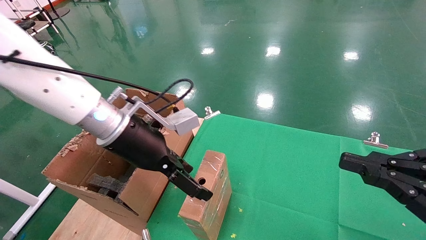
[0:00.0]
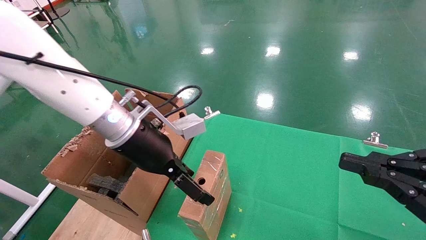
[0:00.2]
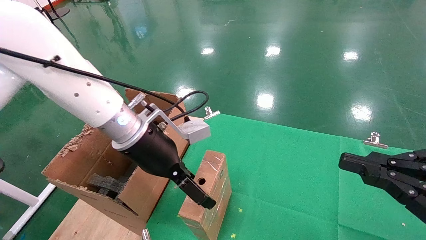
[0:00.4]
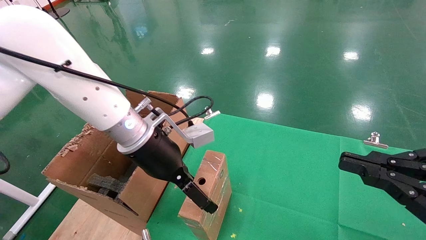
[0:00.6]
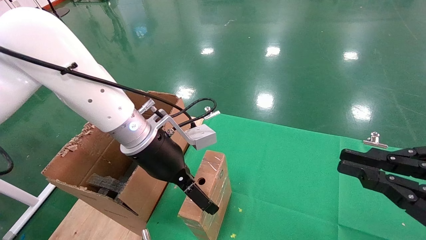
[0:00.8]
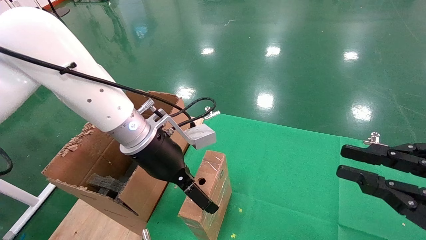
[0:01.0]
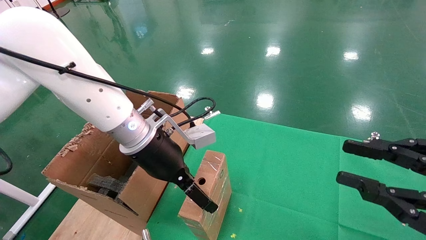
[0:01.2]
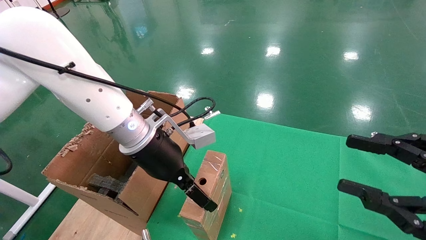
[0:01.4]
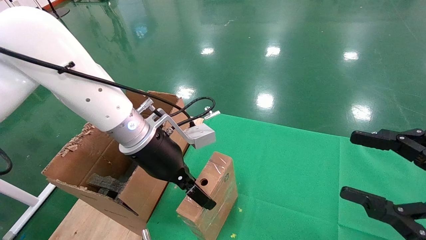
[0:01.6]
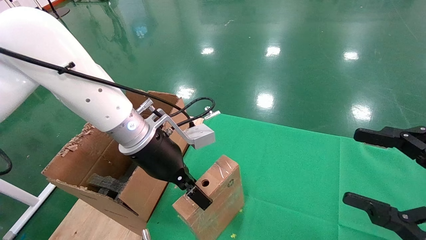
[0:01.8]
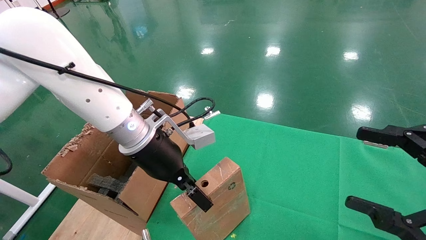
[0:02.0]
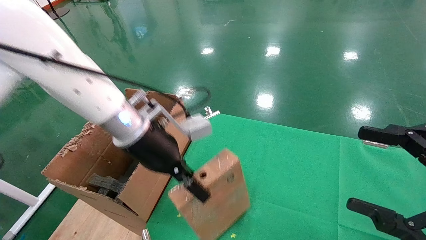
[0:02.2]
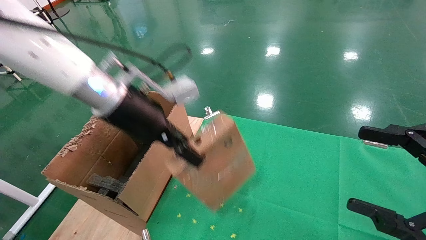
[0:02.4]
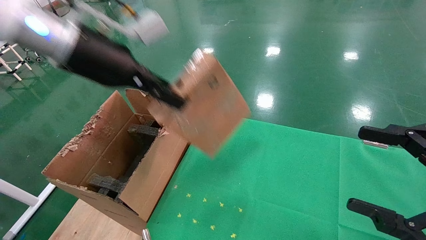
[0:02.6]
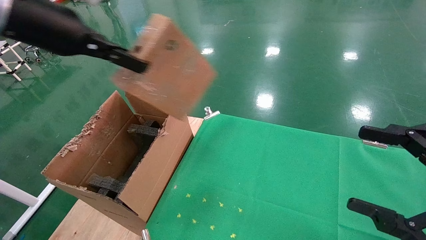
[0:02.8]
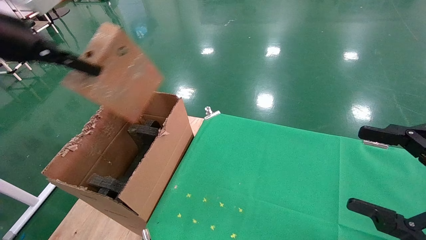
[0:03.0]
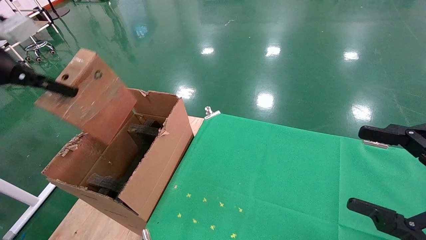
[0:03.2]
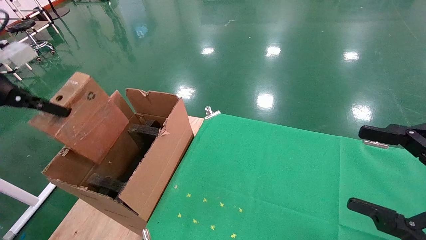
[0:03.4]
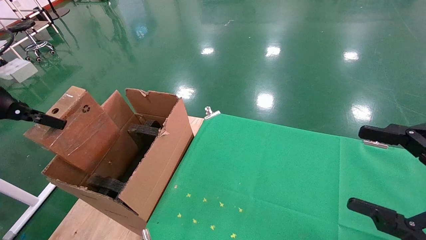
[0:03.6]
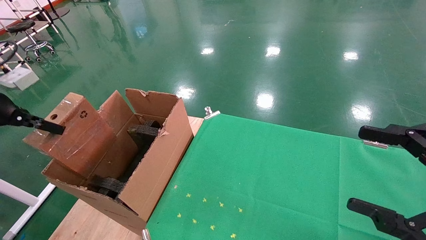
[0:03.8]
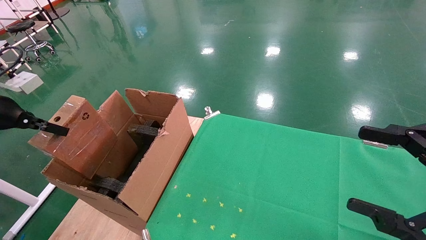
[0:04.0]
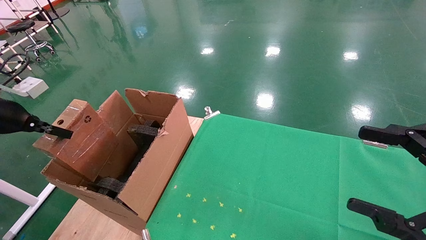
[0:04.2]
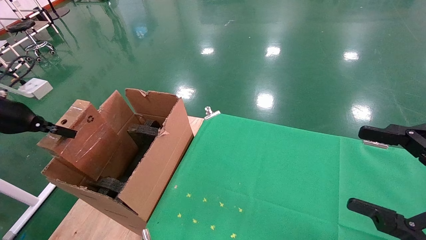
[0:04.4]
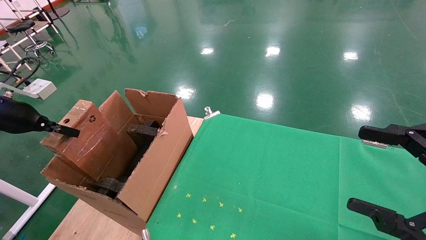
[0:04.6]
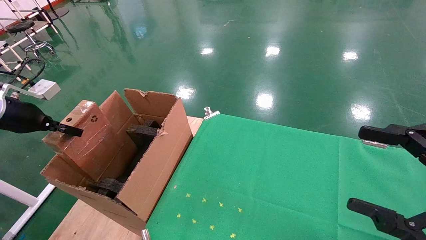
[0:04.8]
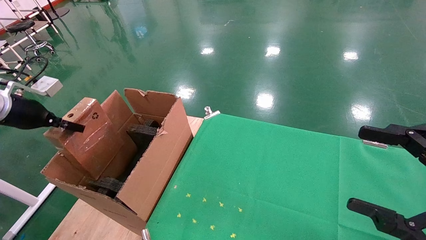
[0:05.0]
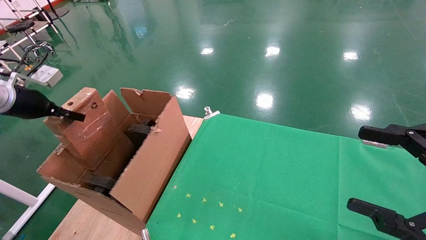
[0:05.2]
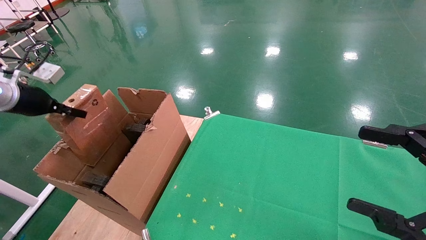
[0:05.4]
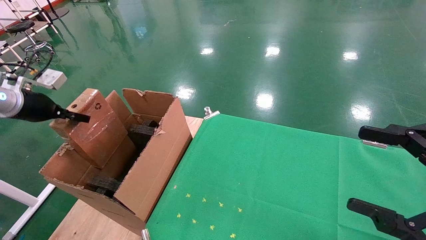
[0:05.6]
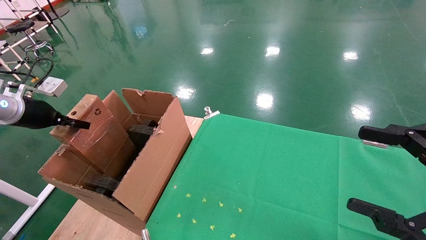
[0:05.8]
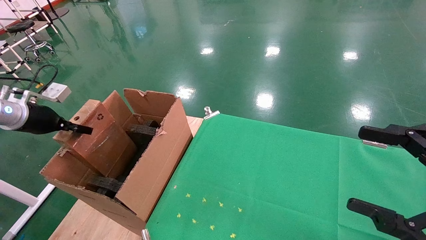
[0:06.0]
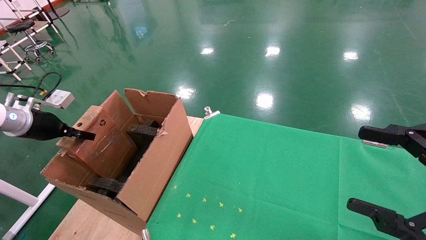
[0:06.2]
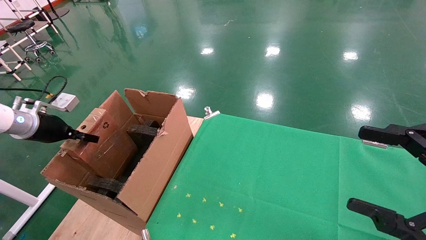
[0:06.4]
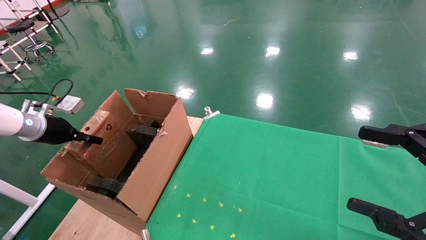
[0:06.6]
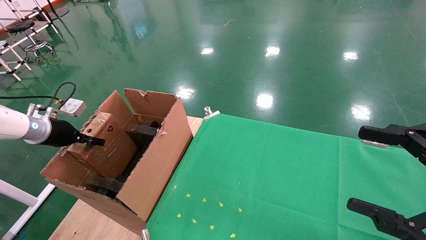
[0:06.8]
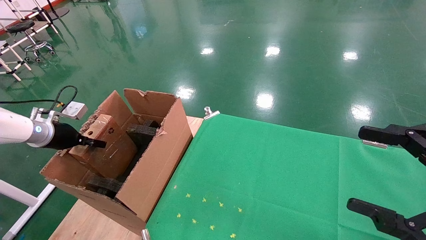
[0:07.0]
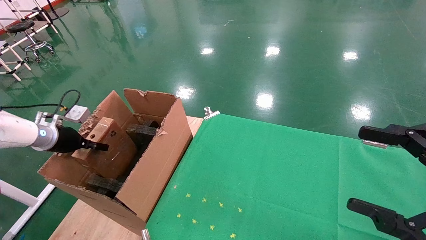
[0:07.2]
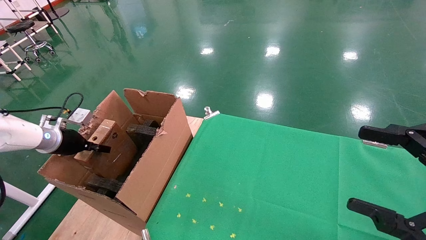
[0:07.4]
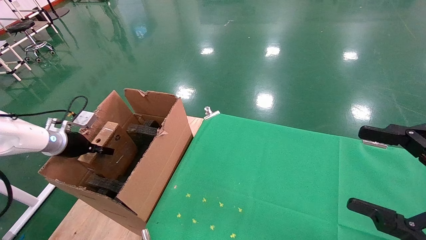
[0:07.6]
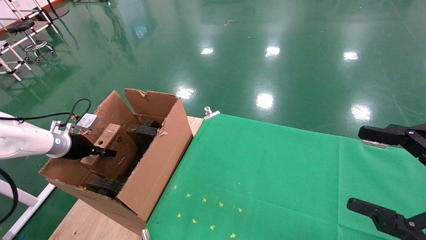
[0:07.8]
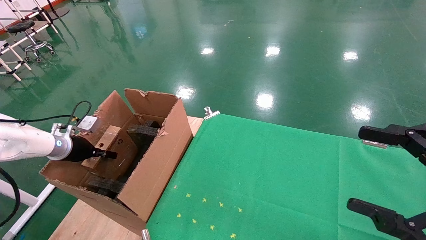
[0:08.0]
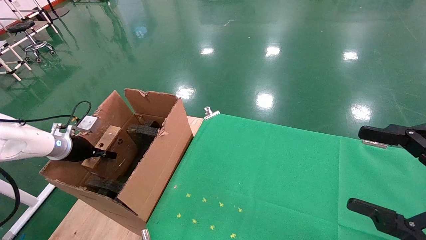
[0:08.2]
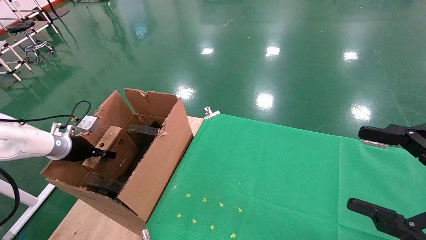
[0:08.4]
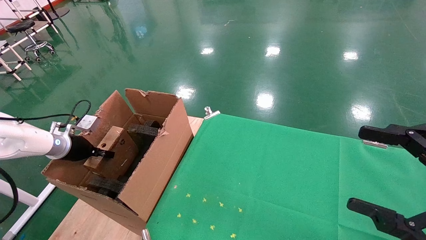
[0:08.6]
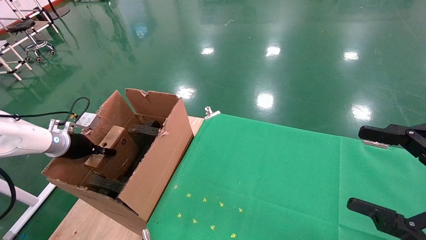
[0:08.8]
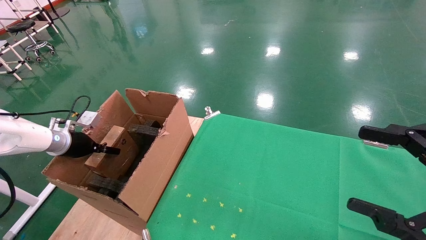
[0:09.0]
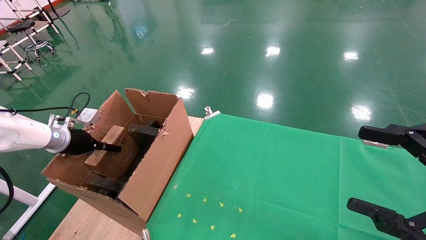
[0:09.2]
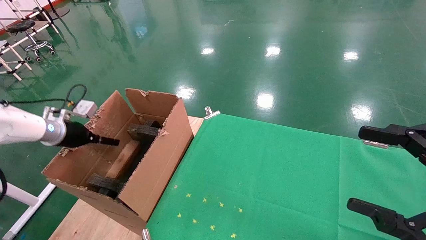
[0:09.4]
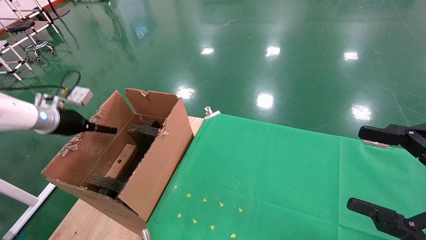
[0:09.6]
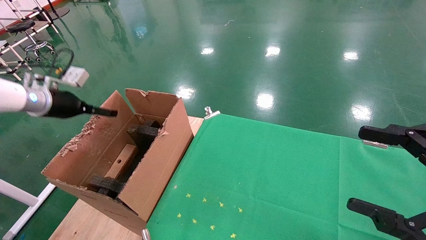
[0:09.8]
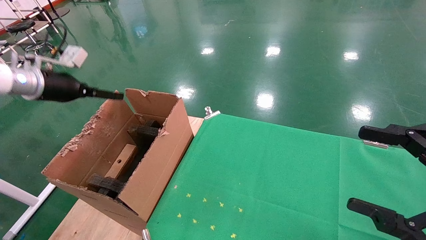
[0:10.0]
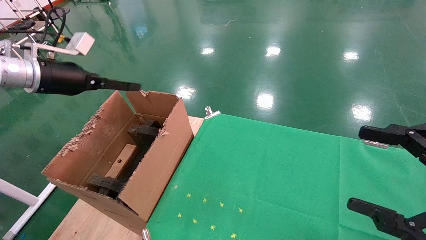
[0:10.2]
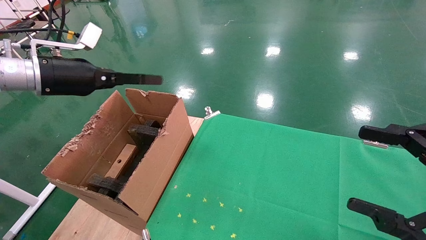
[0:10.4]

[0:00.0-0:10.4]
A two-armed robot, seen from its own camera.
Task of the whole recording: using a robotic arm to pick up a cardboard box and palace it the carton.
Step, 0:02.0 to 0:10.0: Place the mouse and the power cord paper box into the container.
0:00.0 to 0:01.4: The right gripper opens its fingers.
0:01.4 to 0:03.0: The left gripper is displaced to the left and upward by approximately 30 cm, and closes up. Meanwhile the right gripper opens up.
0:03.0 to 0:04.4: The left gripper goes some 20 cm downward and to the left.
0:04.4 to 0:06.0: The left gripper travels forward by some 5 cm.
0:06.0 to 0:07.4: The left gripper heads downward, covering approximately 10 cm.
0:07.4 to 0:09.0: The left gripper opens.
0:09.0 to 0:10.4: The left gripper moves upward and to the right, about 20 cm, and opens.

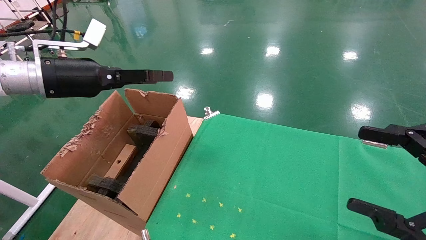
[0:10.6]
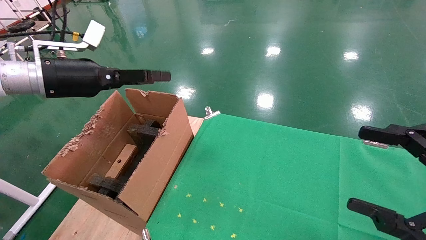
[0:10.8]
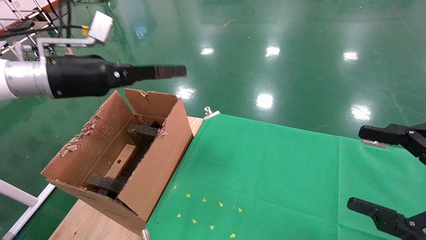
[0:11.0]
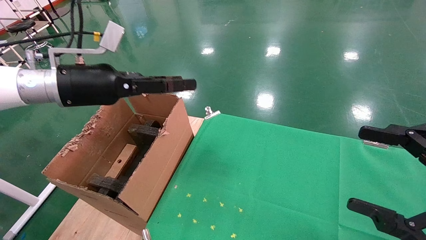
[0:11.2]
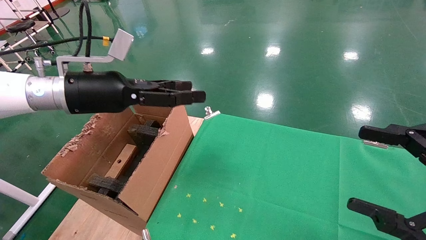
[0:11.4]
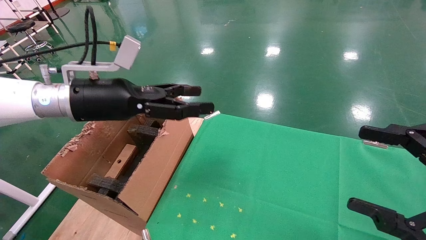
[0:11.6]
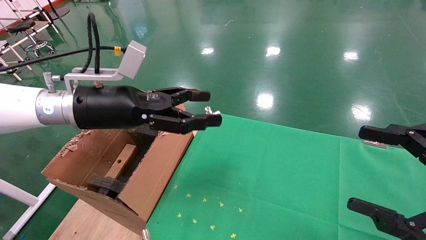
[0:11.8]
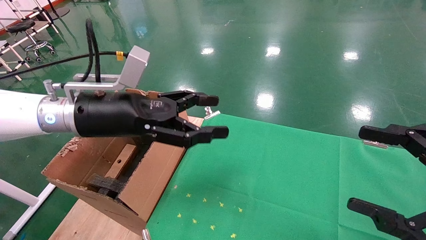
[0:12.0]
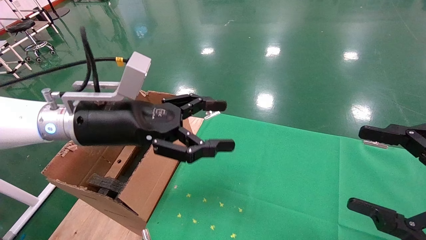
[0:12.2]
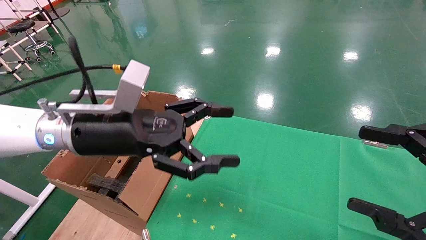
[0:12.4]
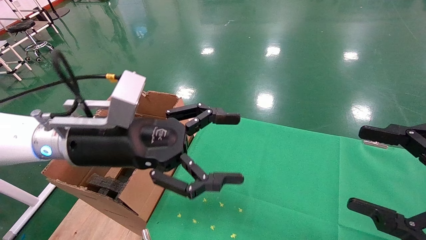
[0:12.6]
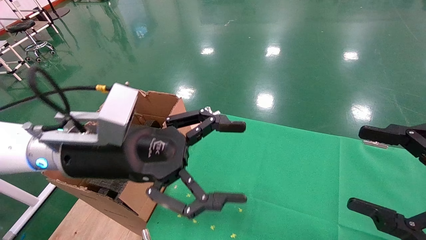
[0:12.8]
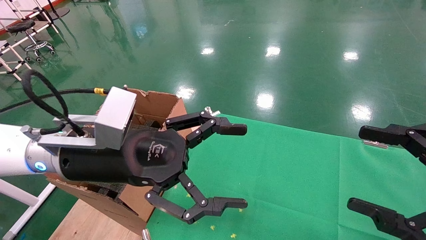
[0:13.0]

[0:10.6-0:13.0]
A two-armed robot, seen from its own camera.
Task of the whole recording: using a robotic arm to pick up a cardboard box and palace it the carton.
0:10.6 to 0:11.8: The left gripper travels to the right by approximately 10 cm.
0:11.8 to 0:13.0: The left gripper is displaced backward and to the right by some 10 cm.
